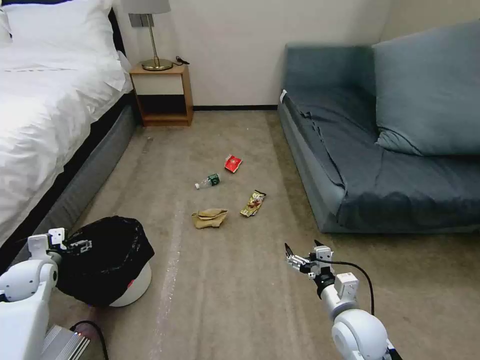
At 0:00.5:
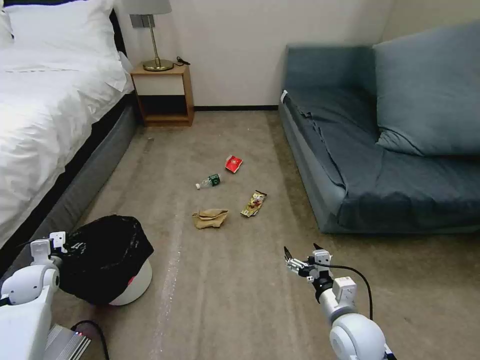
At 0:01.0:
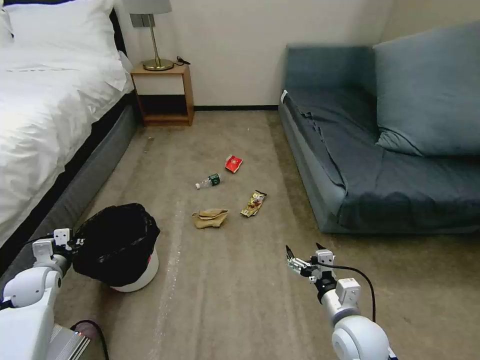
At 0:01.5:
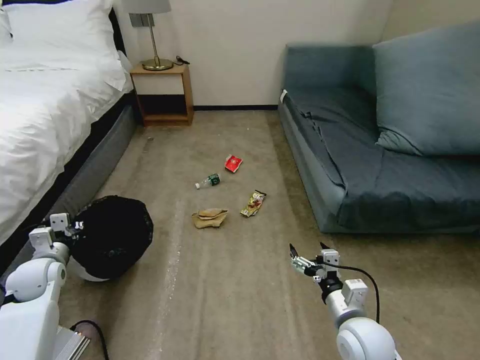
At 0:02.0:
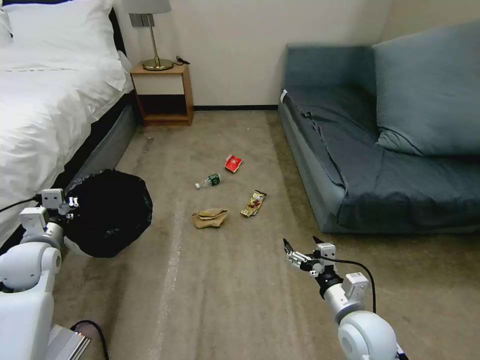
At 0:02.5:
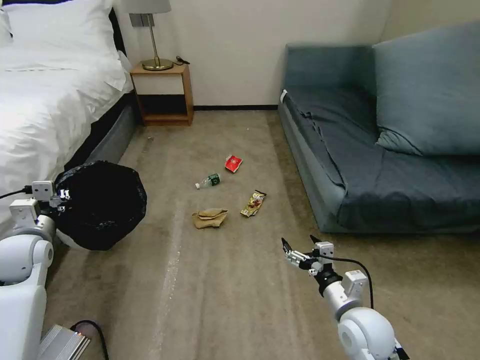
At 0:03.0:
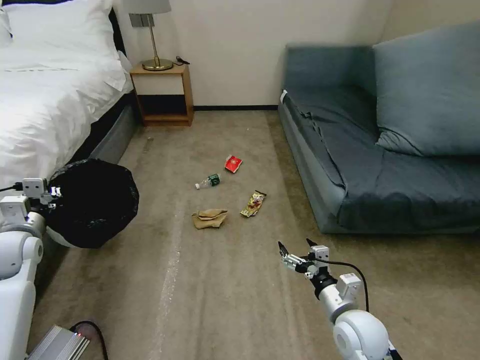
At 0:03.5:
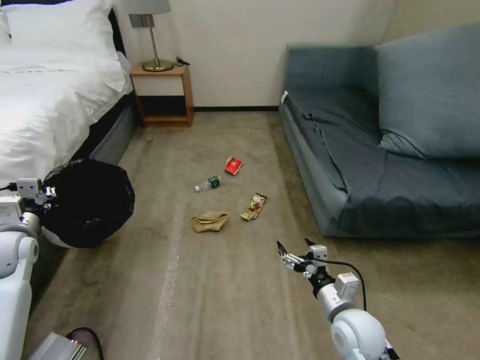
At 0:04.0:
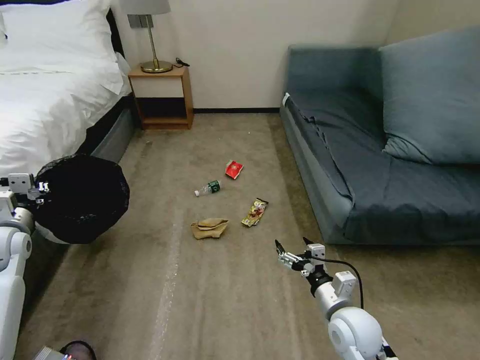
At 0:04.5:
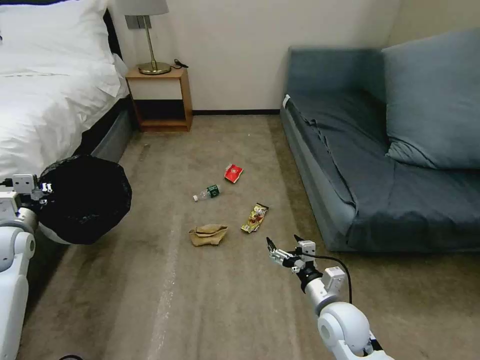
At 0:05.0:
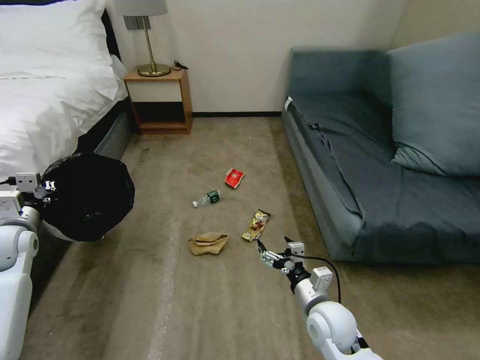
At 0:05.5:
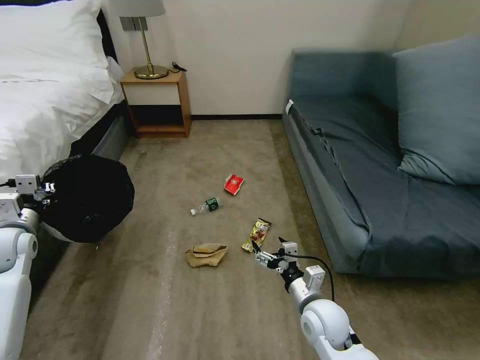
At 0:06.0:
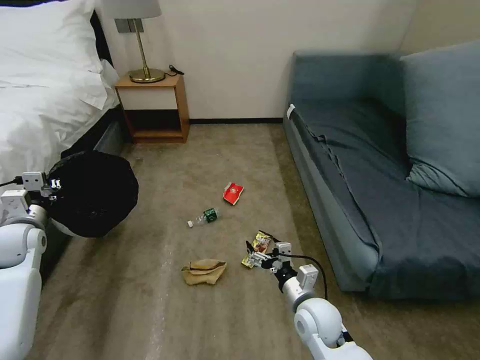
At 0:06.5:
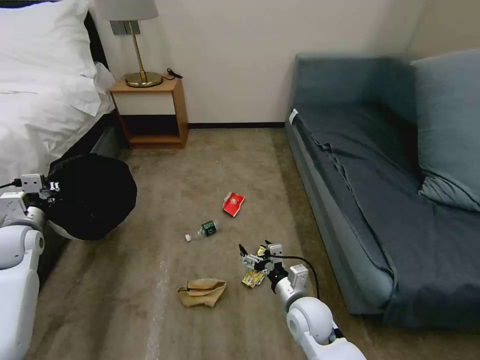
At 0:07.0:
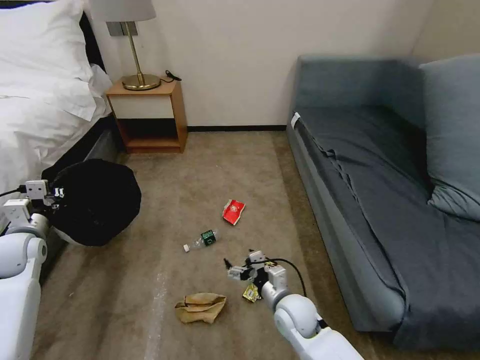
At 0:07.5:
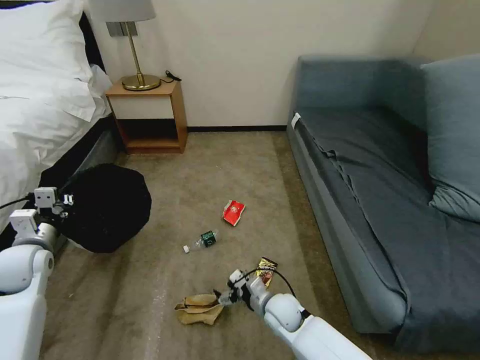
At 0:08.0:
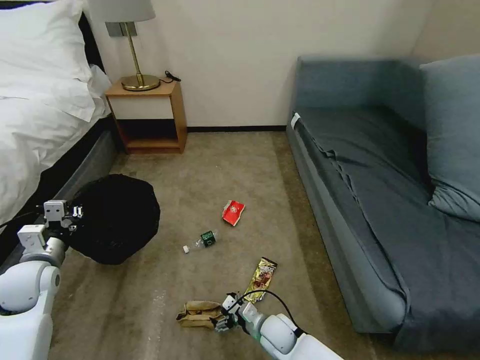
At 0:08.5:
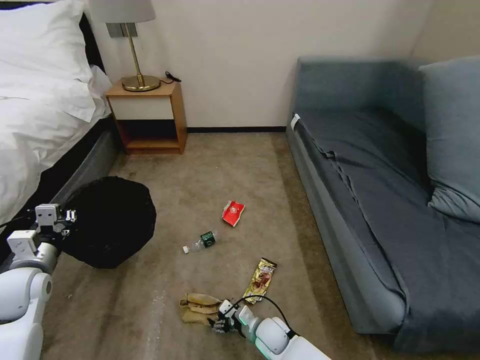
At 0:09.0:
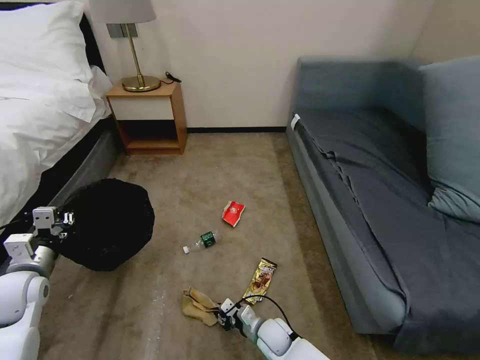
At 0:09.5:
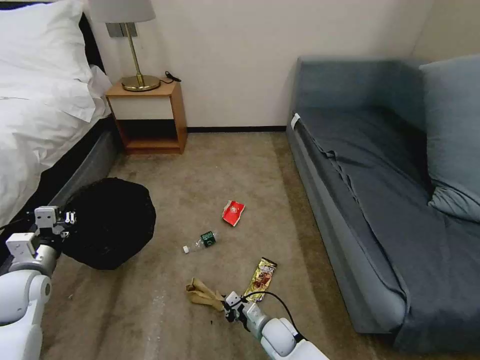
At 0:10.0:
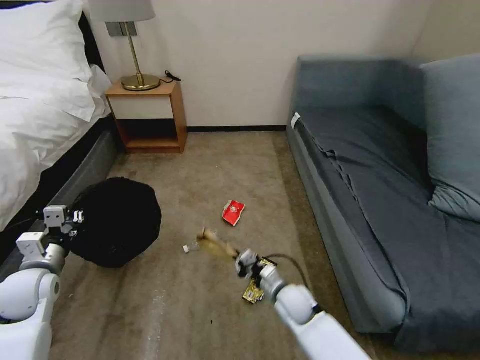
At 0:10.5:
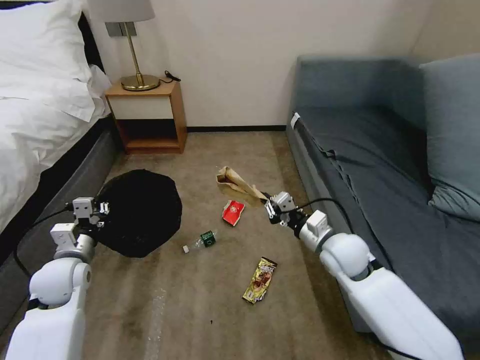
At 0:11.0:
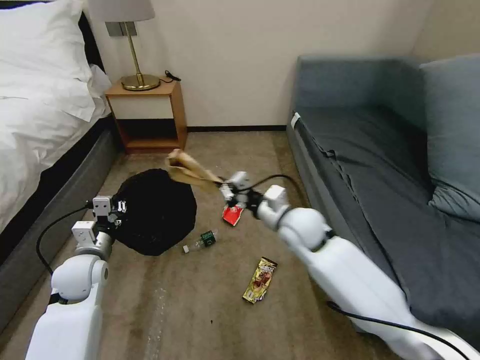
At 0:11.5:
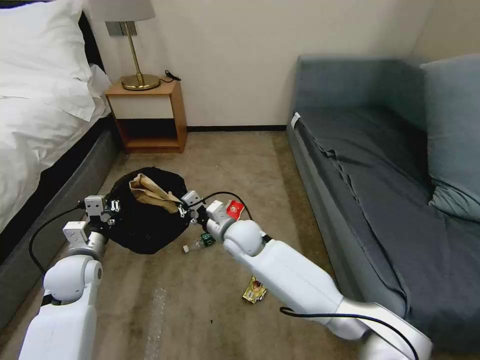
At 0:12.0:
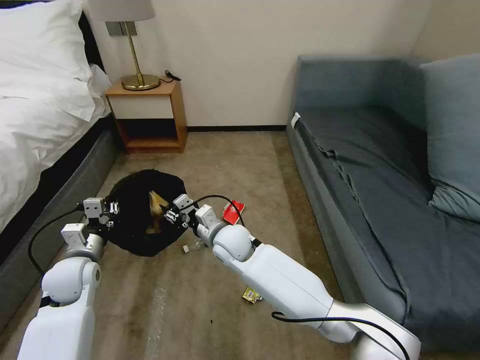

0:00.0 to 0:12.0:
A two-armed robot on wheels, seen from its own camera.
Task of the whole recording: Pick up the trash bin, then pick up the garbage on the floor and place it into the trash bin.
0:00.0 to 0:02.0: The left gripper goes about 10 cm upward and to the right, and closes up.
0:02.0 to 0:04.0: The left gripper heads to the left, covering some 5 cm.
0:04.0 to 0:06.0: The right gripper is displaced to the left by roughly 5 cm.
0:06.0 to 0:08.0: The left gripper is displaced backward and to the right by some 10 cm. Meanwhile the right gripper heads downward and to the left, covering approximately 15 cm.
0:08.0 to 0:10.0: The right gripper heads upward and forward, covering approximately 10 cm, and closes its fingers.
0:10.0 to 0:12.0: The left gripper travels to the right by approximately 5 cm, while the right gripper travels to the left, upward and forward by some 25 cm, and opens its fingers.

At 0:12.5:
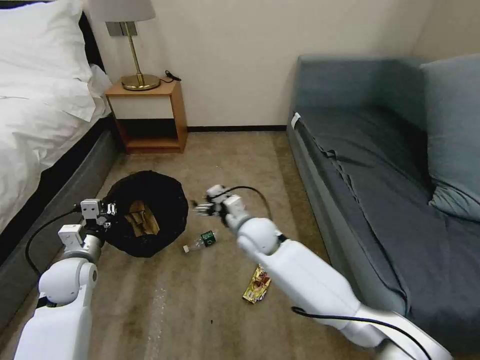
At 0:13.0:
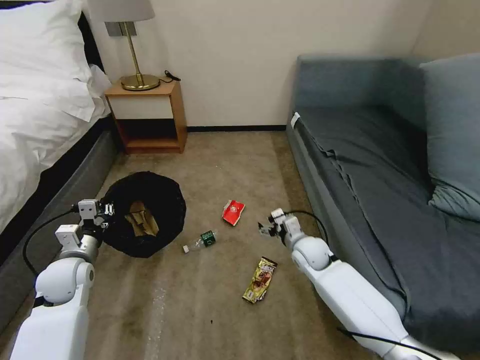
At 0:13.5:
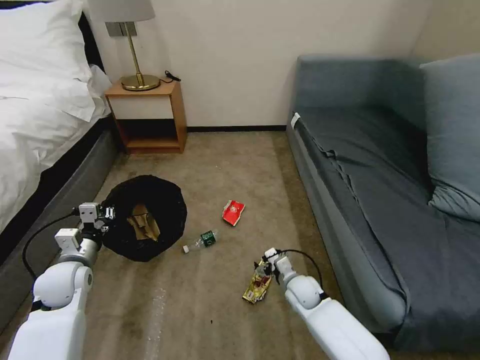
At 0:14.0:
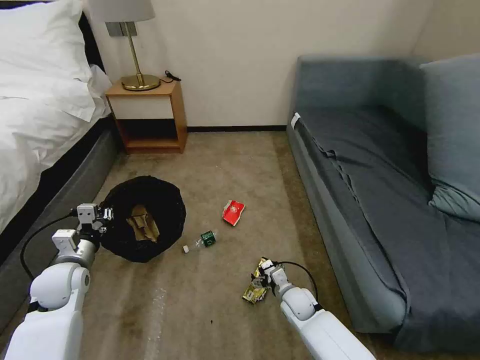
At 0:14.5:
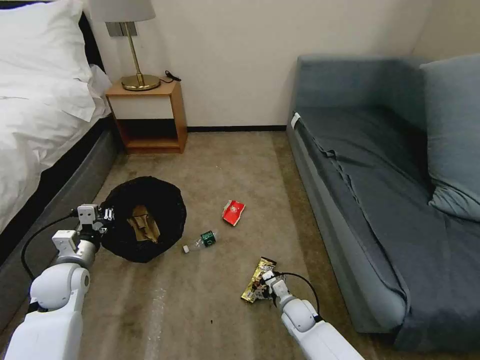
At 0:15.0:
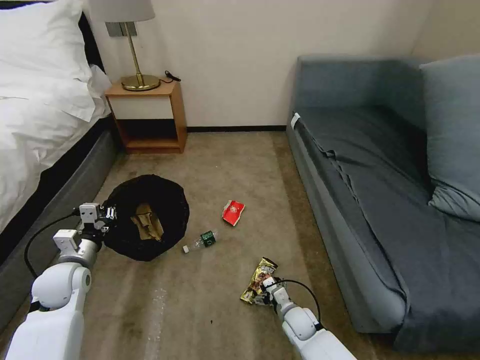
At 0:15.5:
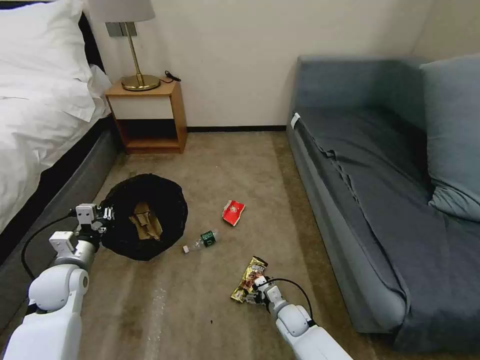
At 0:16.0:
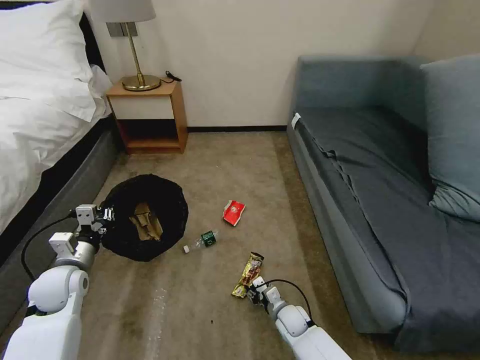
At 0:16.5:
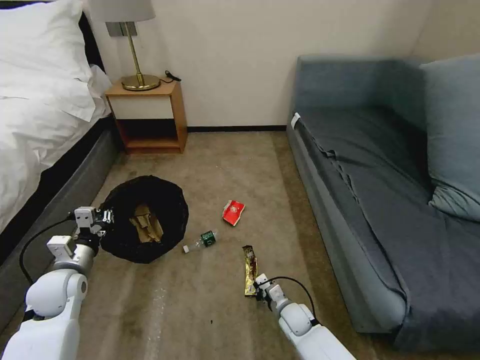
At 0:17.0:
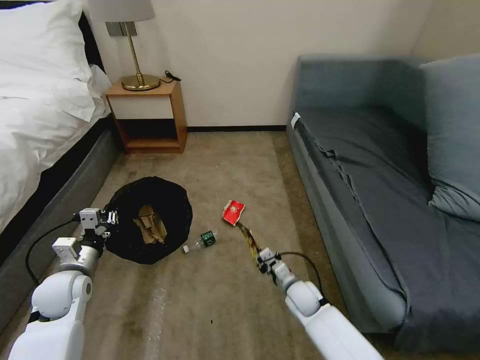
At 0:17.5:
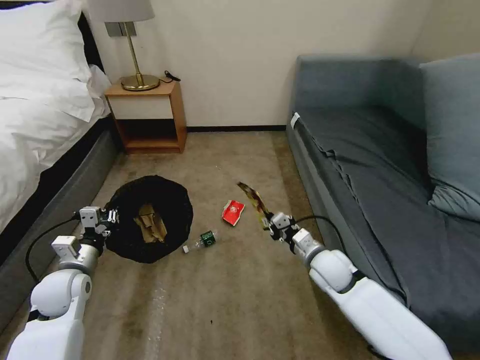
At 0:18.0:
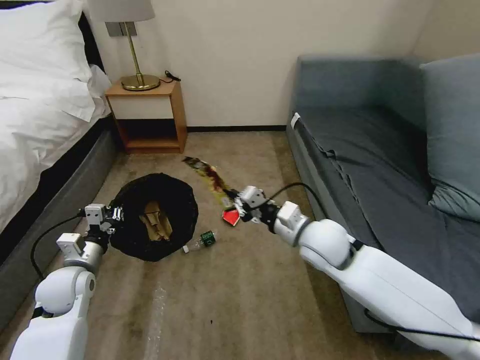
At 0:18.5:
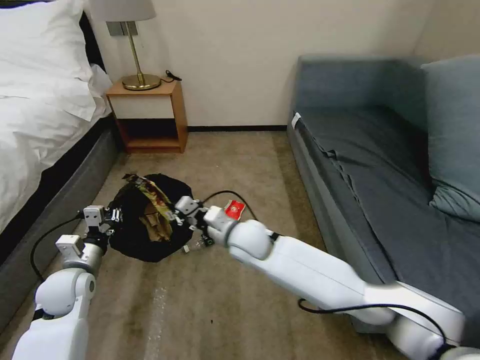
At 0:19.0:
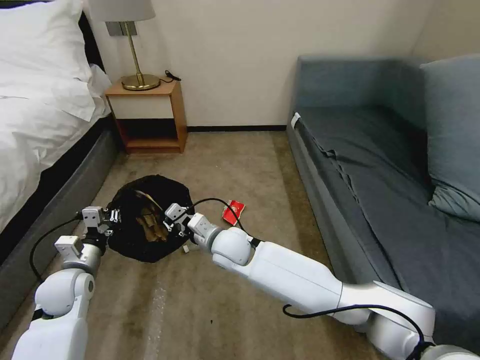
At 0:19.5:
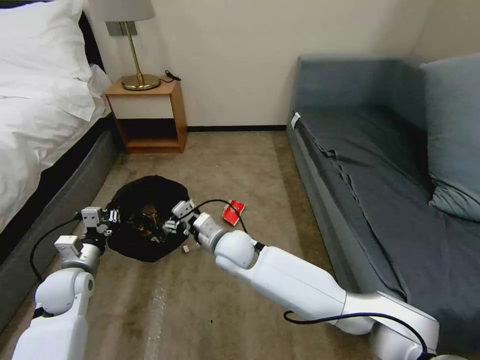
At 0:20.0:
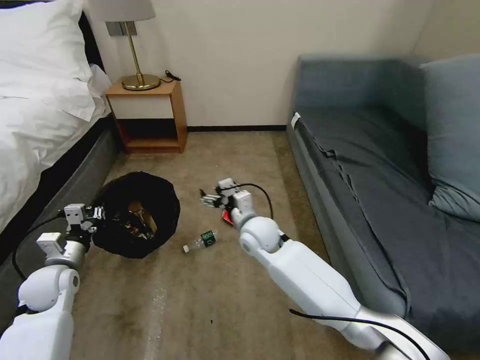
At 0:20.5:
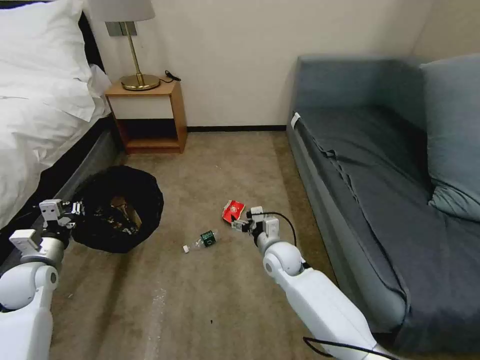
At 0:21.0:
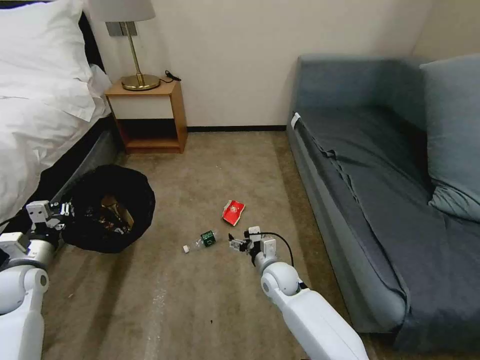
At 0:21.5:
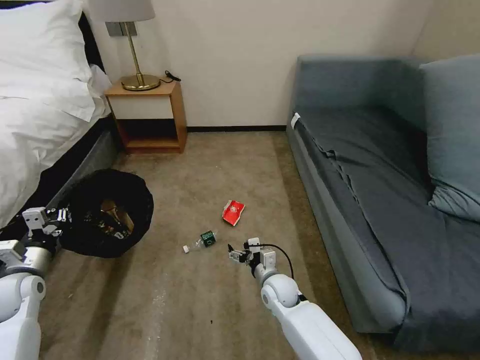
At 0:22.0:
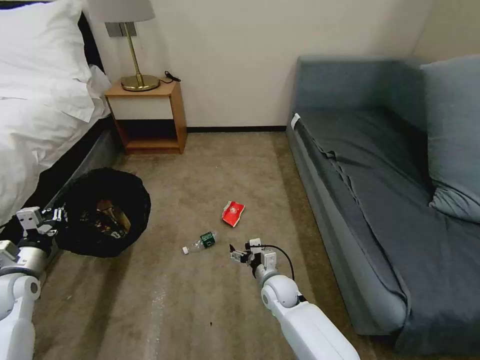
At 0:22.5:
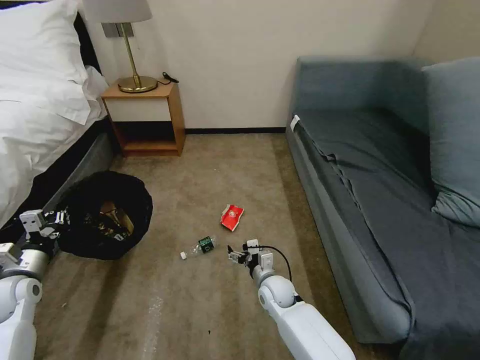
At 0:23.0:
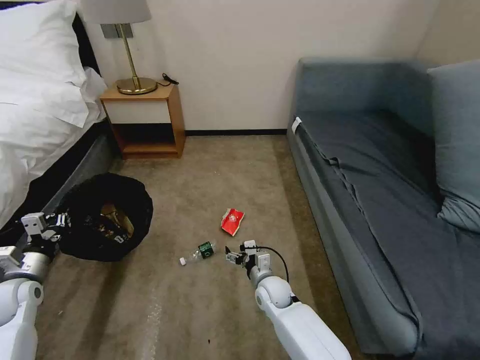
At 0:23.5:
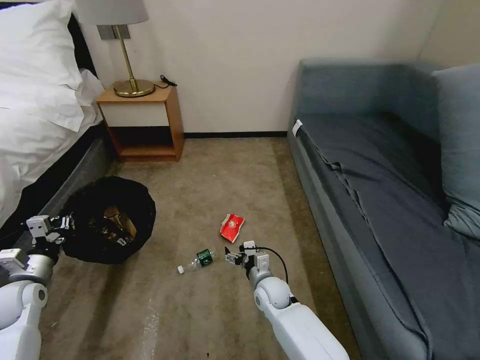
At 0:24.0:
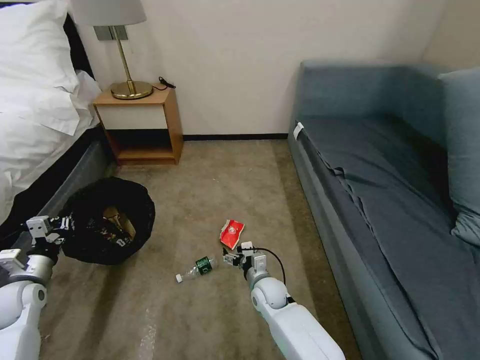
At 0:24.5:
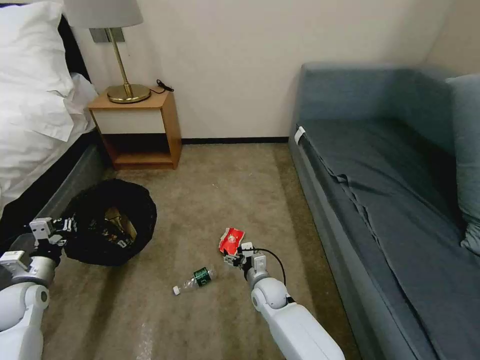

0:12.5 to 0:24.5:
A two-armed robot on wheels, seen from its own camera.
Task of the whole recording: Pick up the trash bin, then pick up the garbage on the floor and place it into the trash bin.
0:12.5 to 0:14.5: The right gripper goes about 30 cm downward, to the right and backward.
0:14.5 to 0:16.5: The right gripper closes up.
0:16.5 to 0:18.5: The right gripper goes some 30 cm upward and to the left.
0:18.5 to 0:20.5: The left gripper is displaced to the left by approximately 10 cm; the right gripper heads to the right and downward, covering some 15 cm, and opens its fingers.
0:20.5 to 0:22.5: The right gripper travels downward and backward by about 10 cm.

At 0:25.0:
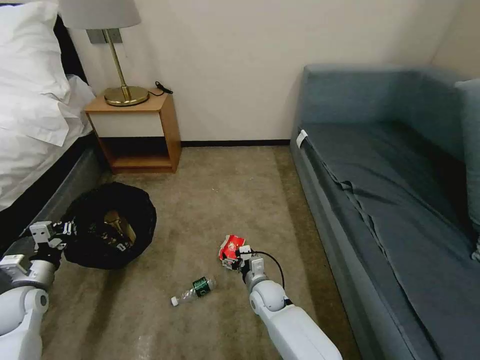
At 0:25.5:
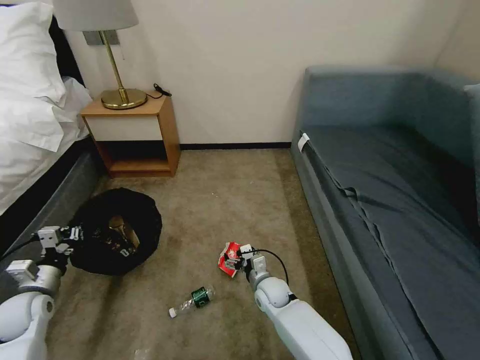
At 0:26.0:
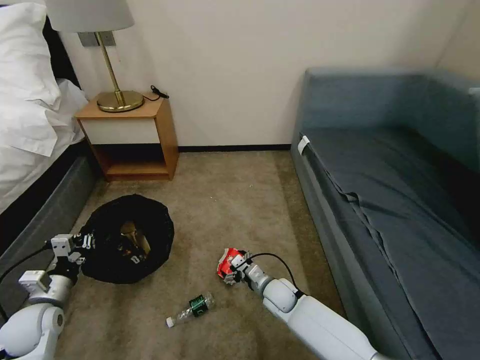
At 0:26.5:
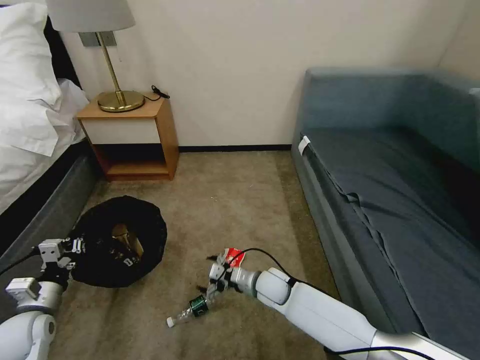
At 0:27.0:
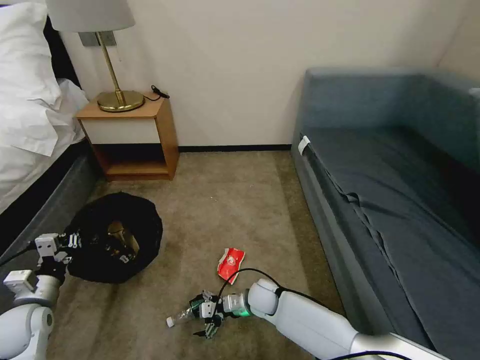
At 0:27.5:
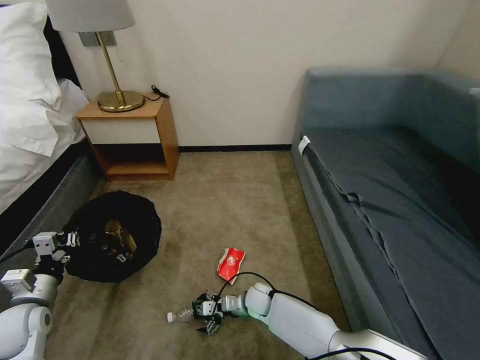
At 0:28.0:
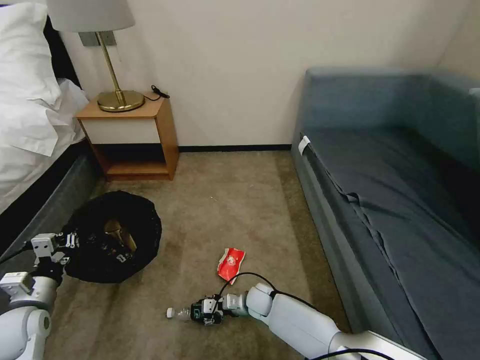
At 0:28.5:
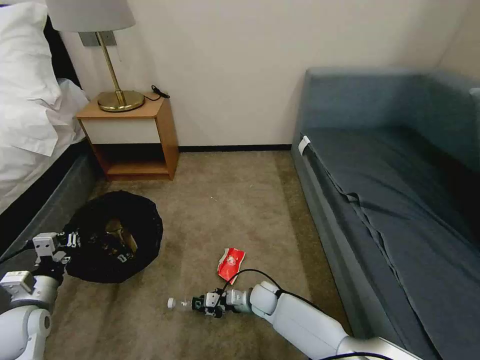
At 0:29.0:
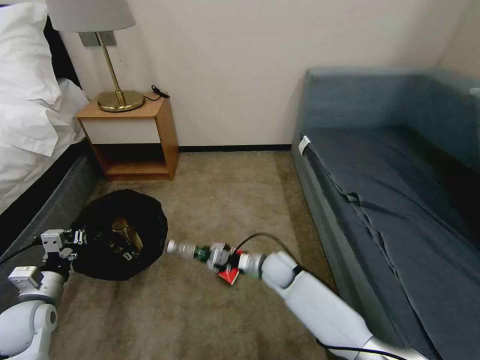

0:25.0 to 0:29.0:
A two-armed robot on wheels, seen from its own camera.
Task of the whole recording: Pick up the trash bin, then pick up the garbage on the floor and place it into the trash bin.
0:25.0 to 0:27.0: The left gripper changes place by some 5 cm.
0:27.0 to 0:29.0: The right gripper shifts approximately 10 cm upward, and closes its fingers.
